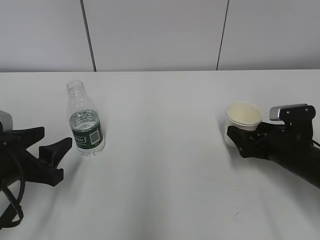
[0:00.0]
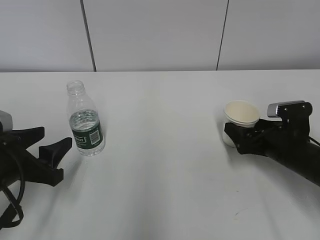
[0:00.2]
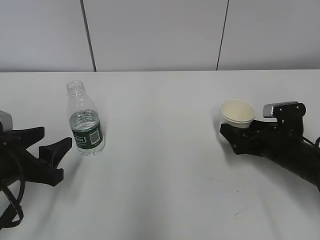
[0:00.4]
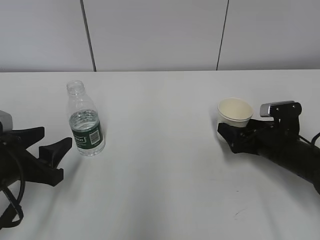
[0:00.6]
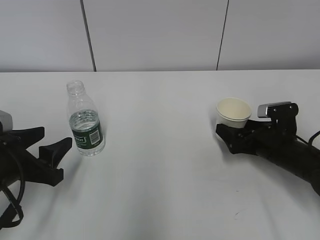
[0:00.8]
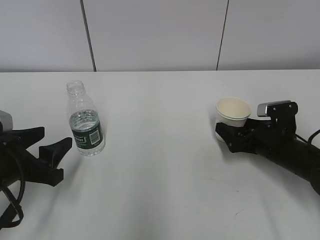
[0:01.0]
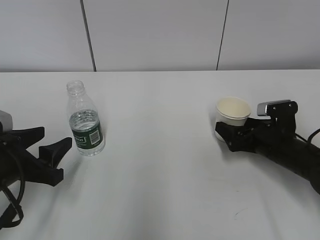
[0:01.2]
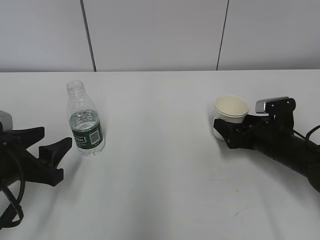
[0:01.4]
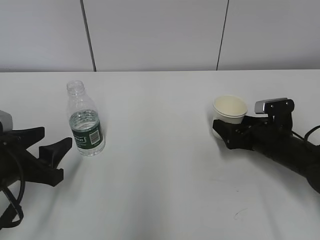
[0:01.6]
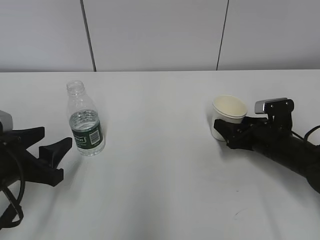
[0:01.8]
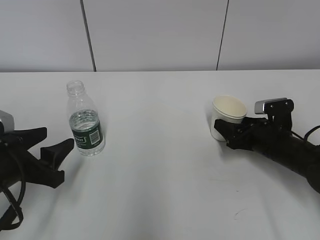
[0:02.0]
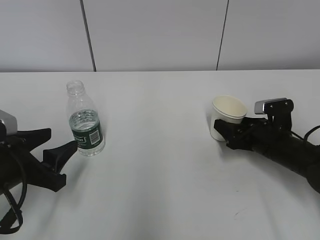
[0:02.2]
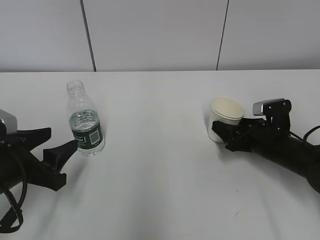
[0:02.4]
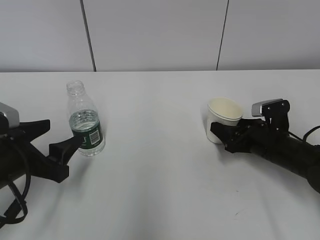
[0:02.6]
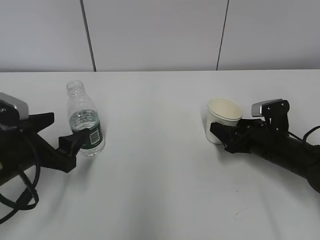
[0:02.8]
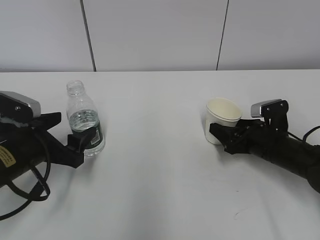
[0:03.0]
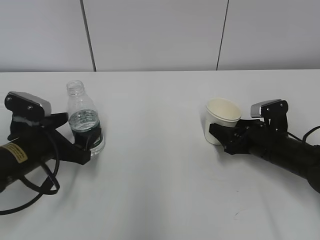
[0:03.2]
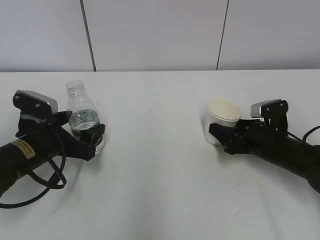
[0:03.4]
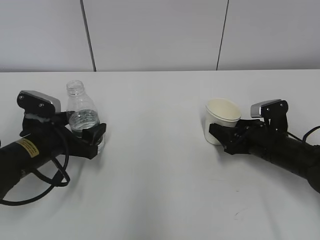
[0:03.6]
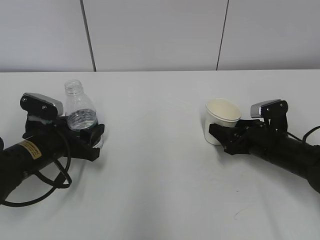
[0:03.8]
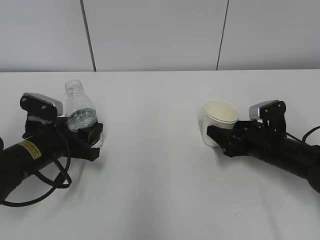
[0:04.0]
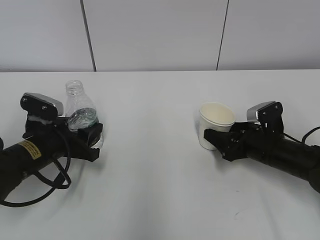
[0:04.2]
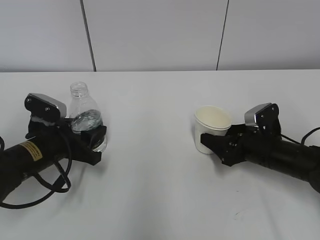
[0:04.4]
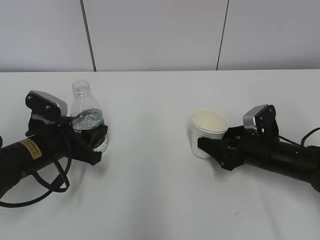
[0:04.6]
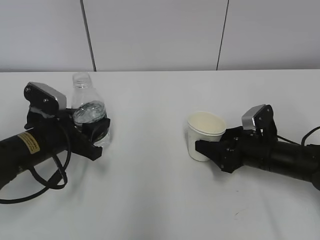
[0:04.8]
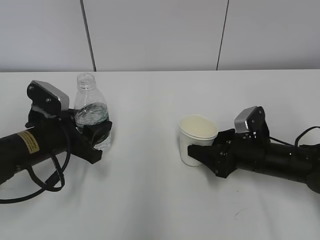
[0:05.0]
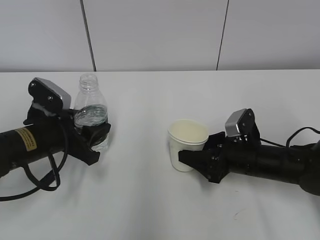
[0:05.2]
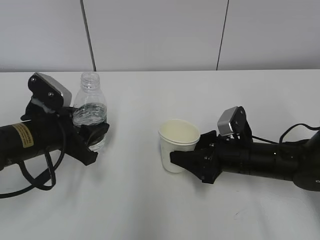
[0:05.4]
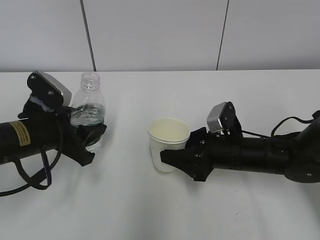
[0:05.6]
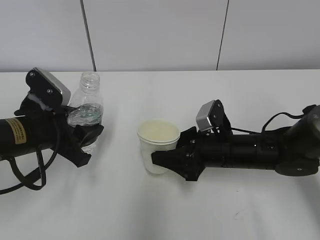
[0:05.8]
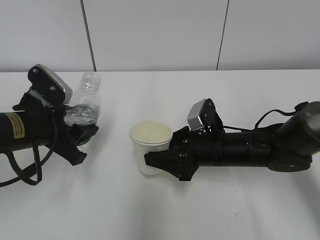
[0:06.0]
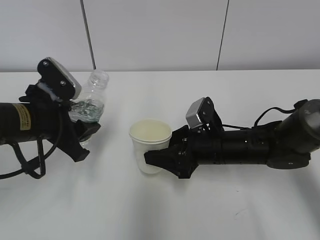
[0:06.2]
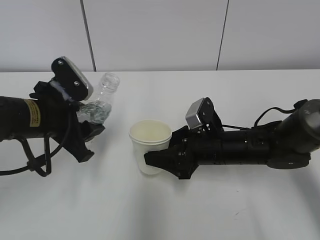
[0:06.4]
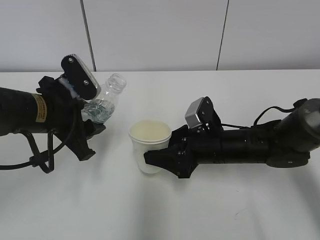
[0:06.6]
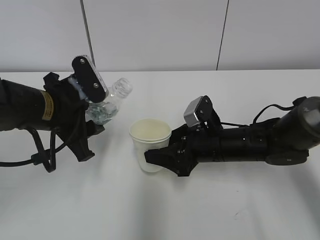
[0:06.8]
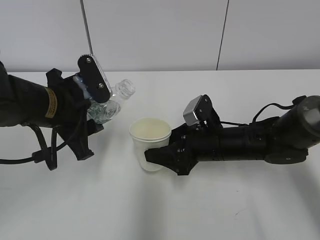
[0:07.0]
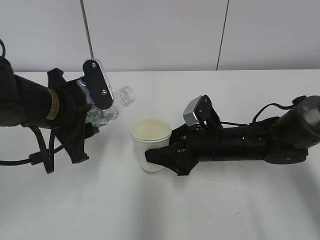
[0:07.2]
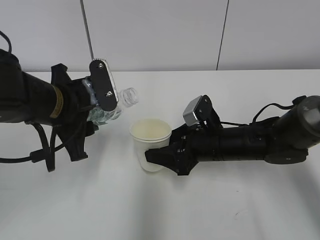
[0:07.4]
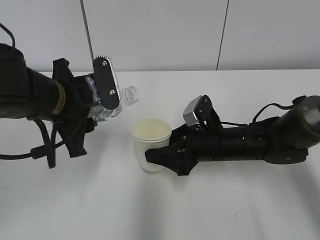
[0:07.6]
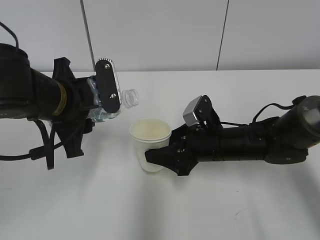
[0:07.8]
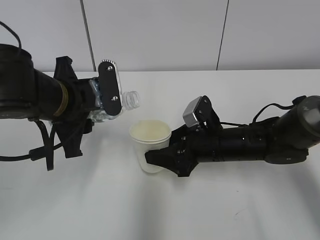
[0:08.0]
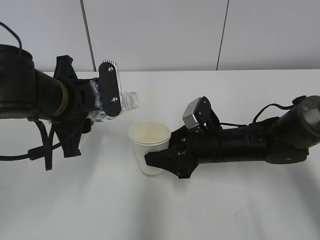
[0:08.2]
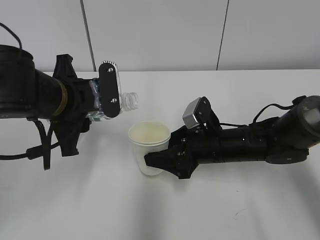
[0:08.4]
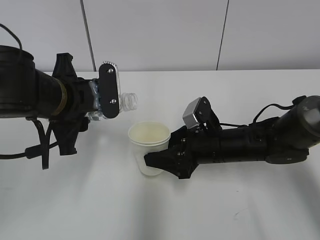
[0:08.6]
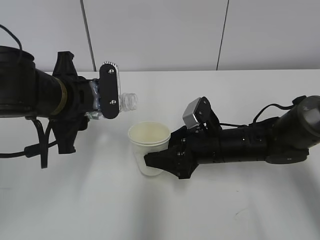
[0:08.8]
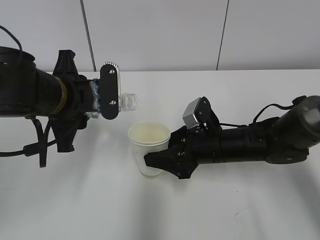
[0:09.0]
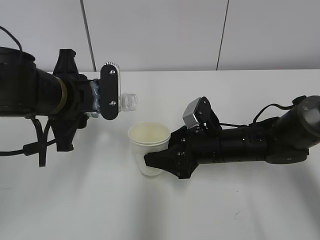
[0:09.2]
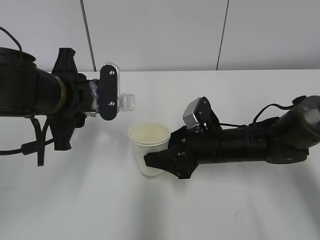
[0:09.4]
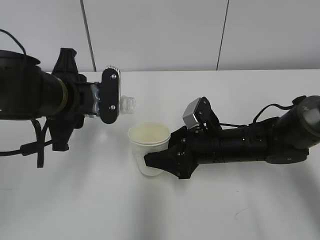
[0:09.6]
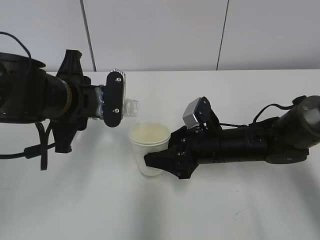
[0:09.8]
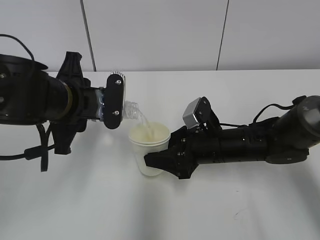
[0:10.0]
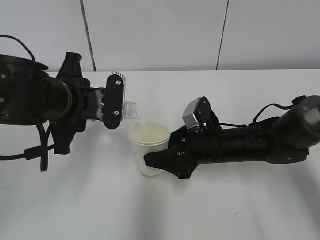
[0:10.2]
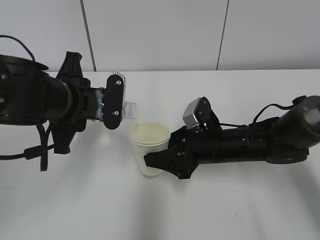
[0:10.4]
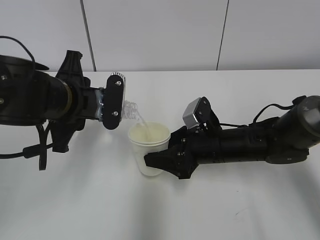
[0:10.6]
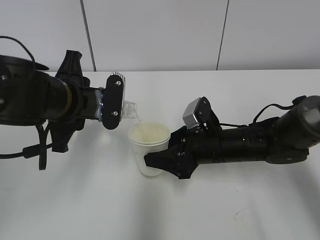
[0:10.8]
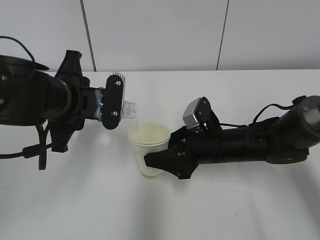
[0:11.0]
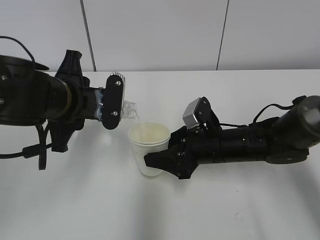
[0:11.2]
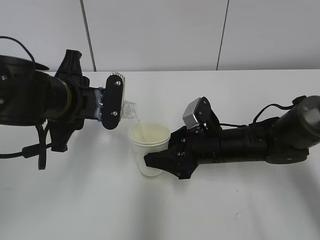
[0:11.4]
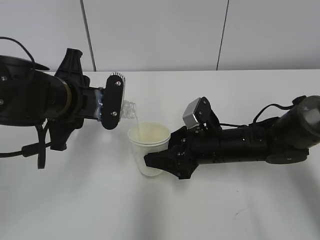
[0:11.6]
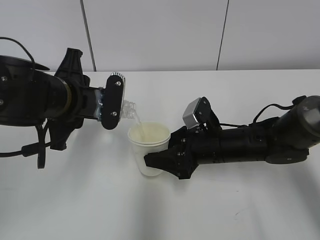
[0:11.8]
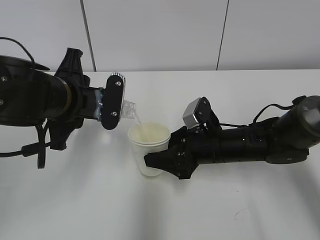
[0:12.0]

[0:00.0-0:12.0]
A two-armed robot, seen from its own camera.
Step, 0:00.0 to 0:02.2: Grab the paper cup with the right hand.
Step, 0:02.6 to 0:06.8: Lift the paper cup with the right hand.
0:00.0 to 0:01.6: The grippers make only small movements.
0:01.6 to 0:03.0: The right gripper closes its fingers.
0:03.0 to 0:04.4: The left gripper shifts by approximately 5 cm, and closes its fingers.
0:04.4 to 0:06.0: The right gripper is displaced to the left by roughly 10 cm; the left gripper shifts about 5 cm upward.
0:06.0 to 0:07.6: The left gripper goes some 5 cm to the right and upward.
0:07.6 to 0:09.0: The grippers make only small movements.
0:09.0 to 0:10.4: The grippers make only small movements.
0:10.4 to 0:12.0: The two grippers keep their place.

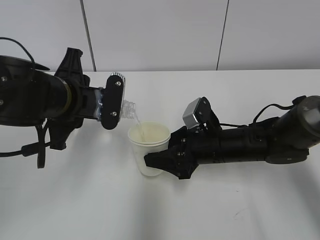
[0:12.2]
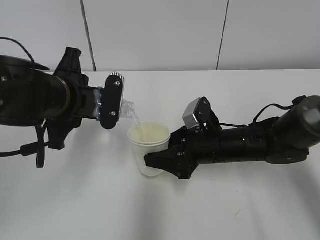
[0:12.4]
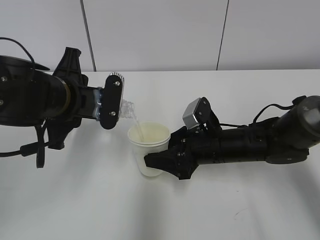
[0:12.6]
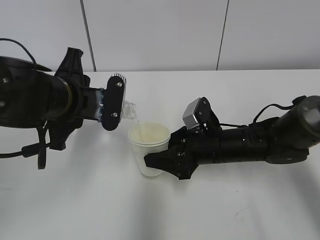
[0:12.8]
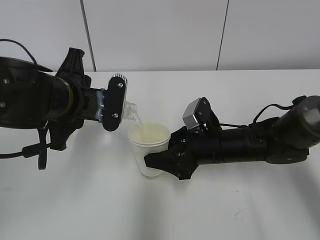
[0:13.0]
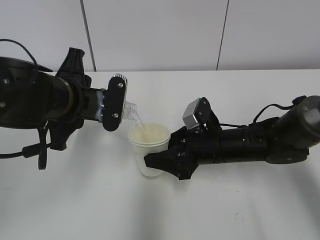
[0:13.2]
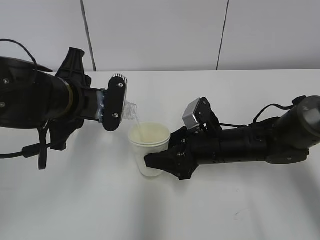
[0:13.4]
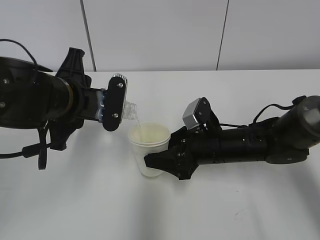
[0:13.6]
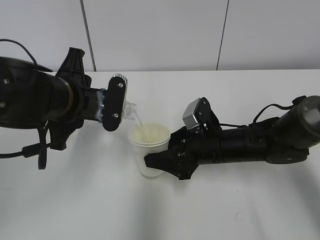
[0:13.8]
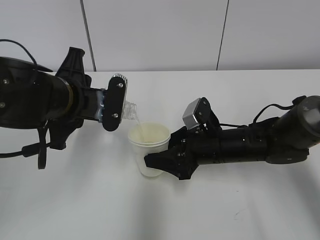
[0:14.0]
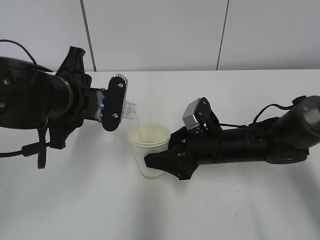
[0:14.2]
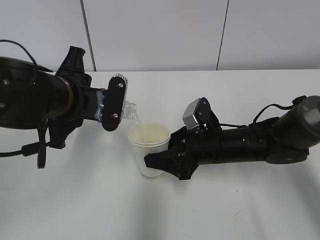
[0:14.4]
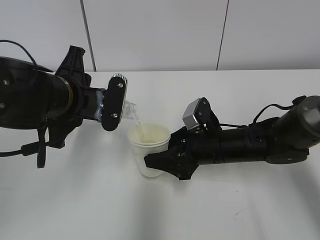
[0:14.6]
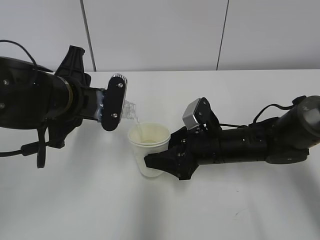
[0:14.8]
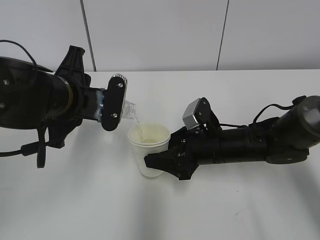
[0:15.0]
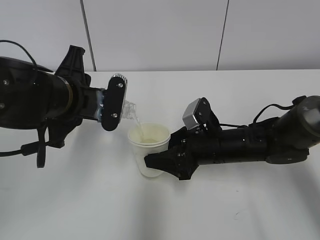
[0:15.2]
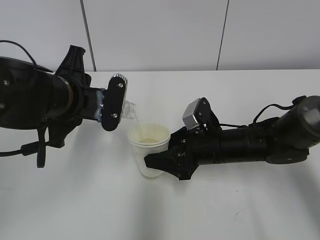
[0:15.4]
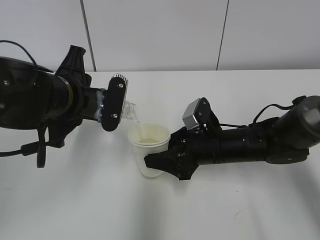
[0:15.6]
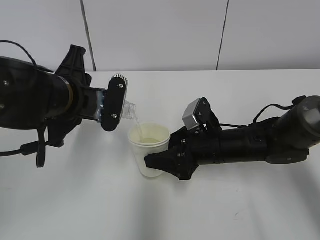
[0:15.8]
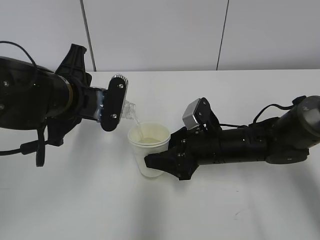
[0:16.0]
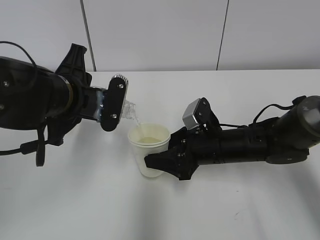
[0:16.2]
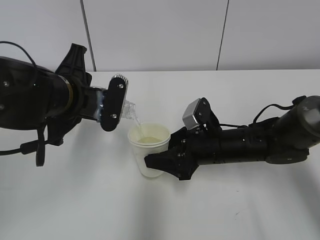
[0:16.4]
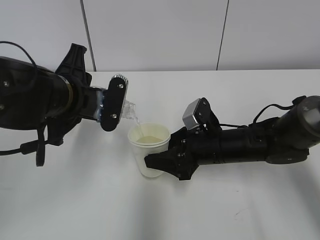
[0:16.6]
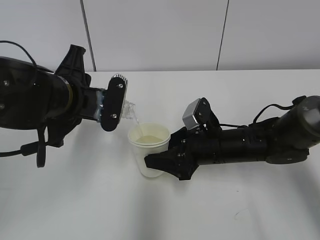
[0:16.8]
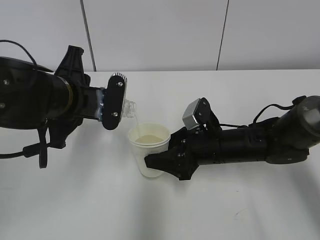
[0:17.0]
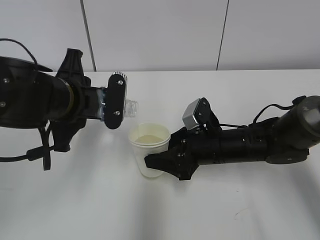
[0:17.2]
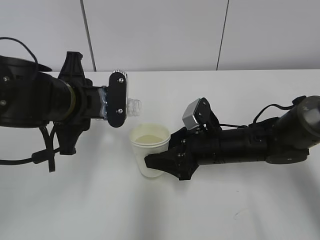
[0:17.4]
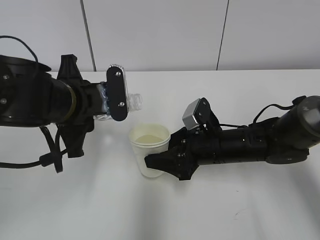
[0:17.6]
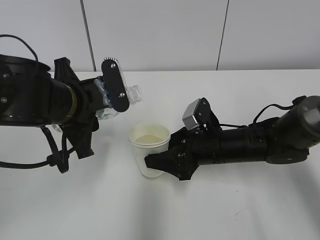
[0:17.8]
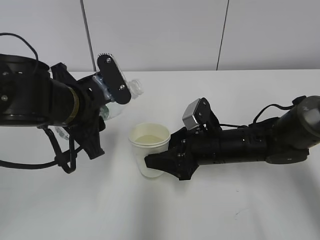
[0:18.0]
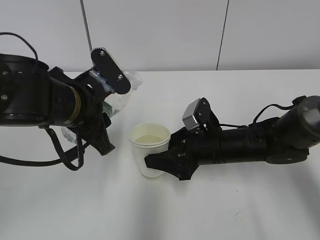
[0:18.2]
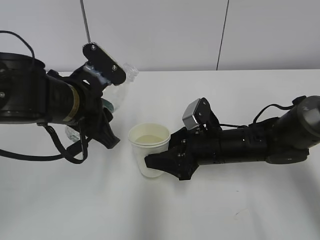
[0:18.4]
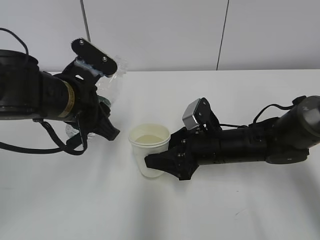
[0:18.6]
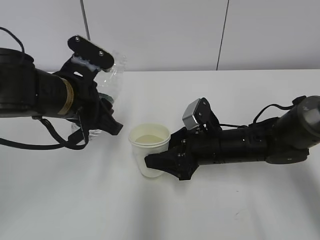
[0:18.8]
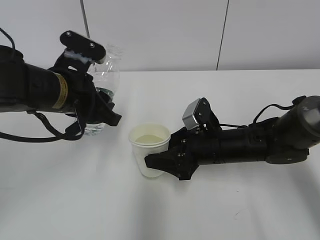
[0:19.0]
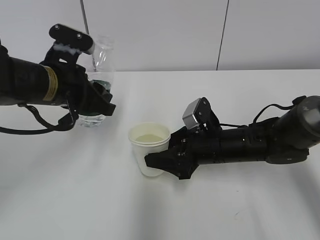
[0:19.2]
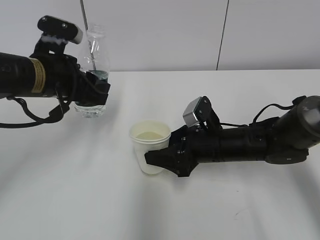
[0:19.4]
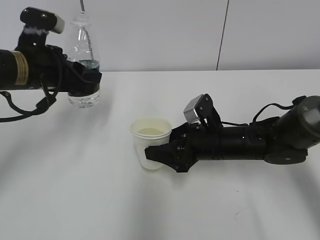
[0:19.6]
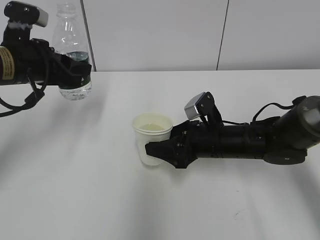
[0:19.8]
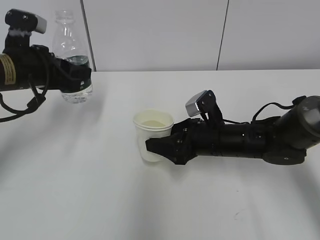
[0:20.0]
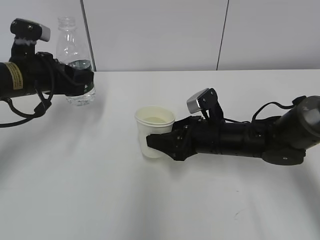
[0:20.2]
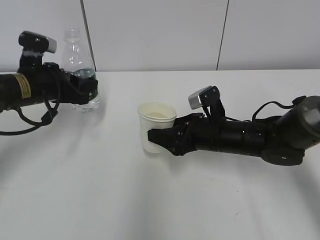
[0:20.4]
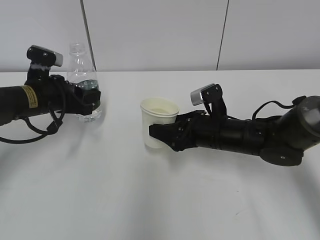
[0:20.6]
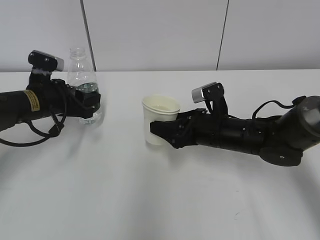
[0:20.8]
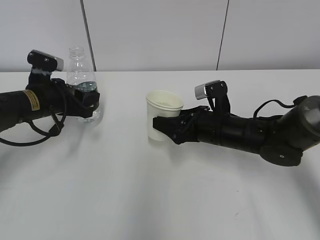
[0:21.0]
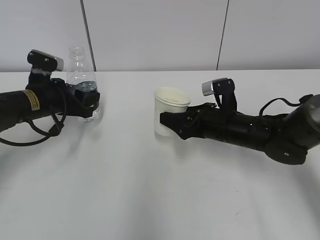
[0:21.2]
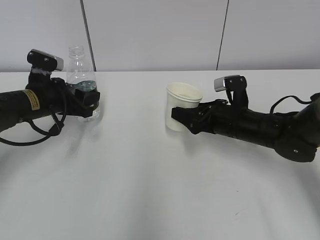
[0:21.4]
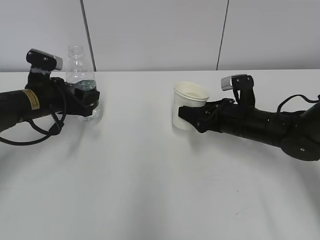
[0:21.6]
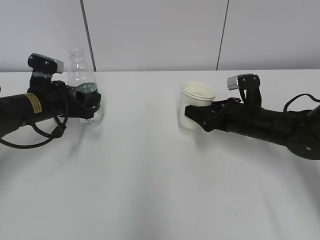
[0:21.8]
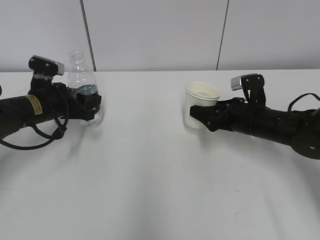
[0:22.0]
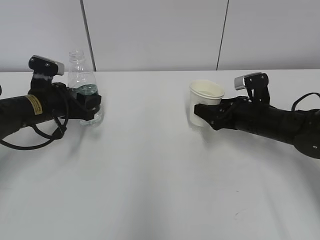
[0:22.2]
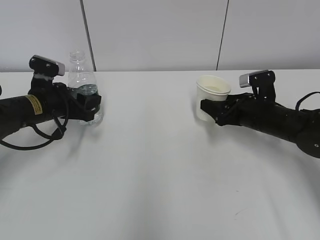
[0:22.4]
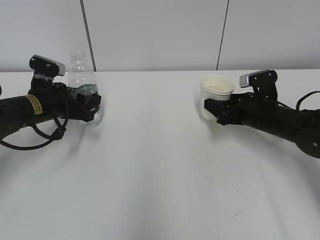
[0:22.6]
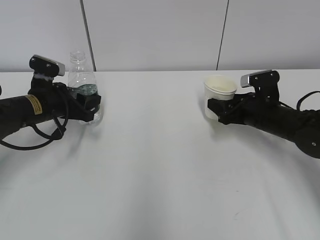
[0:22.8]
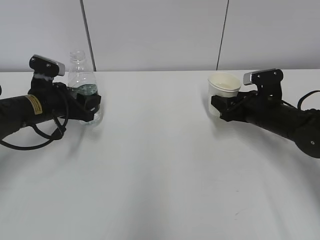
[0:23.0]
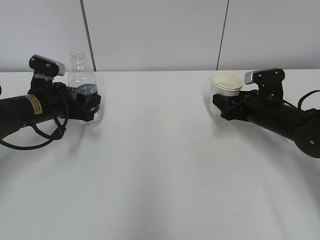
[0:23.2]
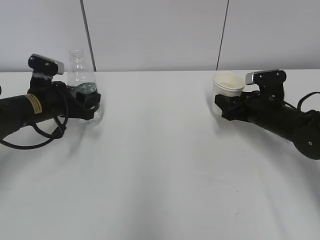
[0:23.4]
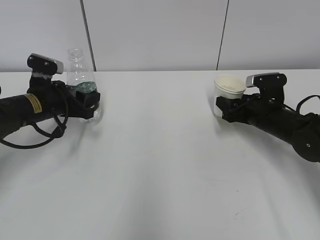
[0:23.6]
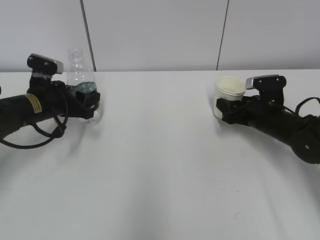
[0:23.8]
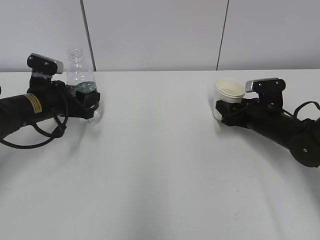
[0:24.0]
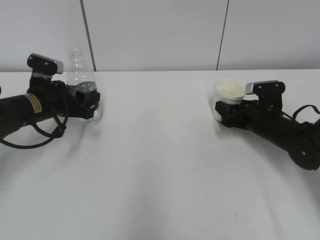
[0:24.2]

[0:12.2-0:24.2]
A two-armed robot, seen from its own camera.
Step, 0:19.6 to 0:21.4: Place the water bottle with the left hand.
0:12.2 to 0:15.2: Both grippers stay put.
0:15.2 to 0:16.6: Both grippers stay about where they are.
0:18.2 to 0:19.8: The left gripper heads to the left and forward, covering about 10 cm.
0:19.8 to 0:21.2: The left gripper travels downward by about 10 cm.
0:21.2 to 0:22.6: The right gripper travels to the right by about 10 cm.
0:22.6 to 0:24.2: The grippers move only a little.
